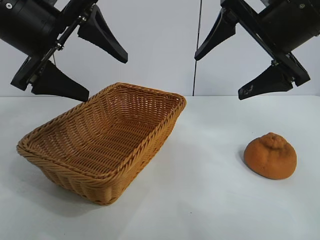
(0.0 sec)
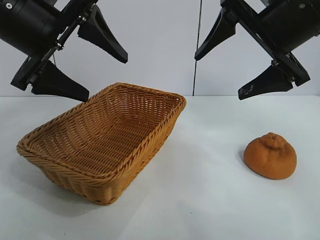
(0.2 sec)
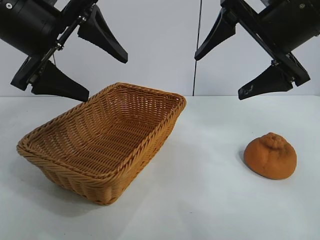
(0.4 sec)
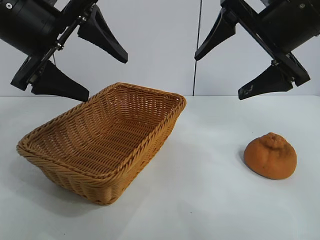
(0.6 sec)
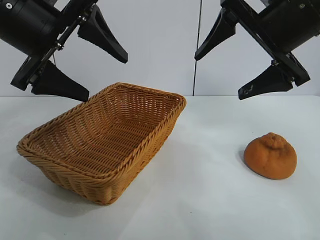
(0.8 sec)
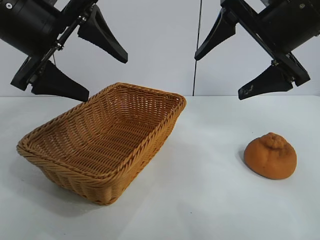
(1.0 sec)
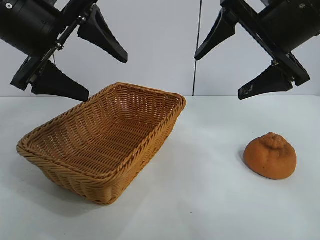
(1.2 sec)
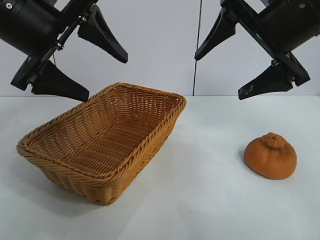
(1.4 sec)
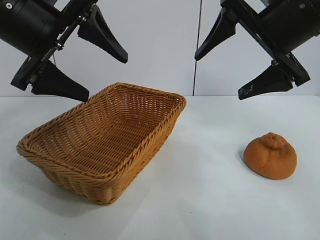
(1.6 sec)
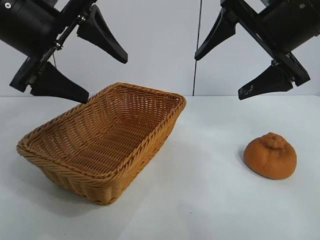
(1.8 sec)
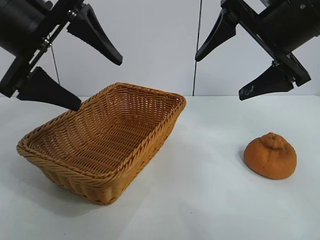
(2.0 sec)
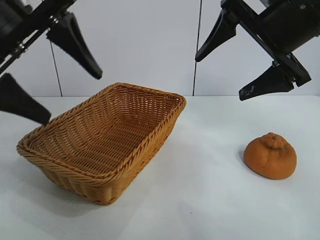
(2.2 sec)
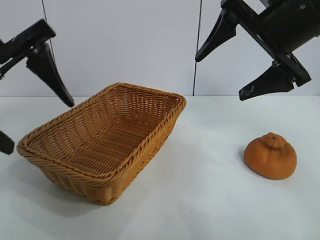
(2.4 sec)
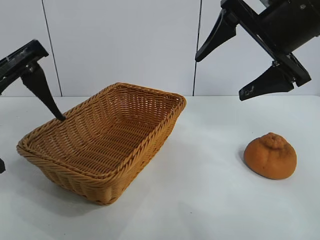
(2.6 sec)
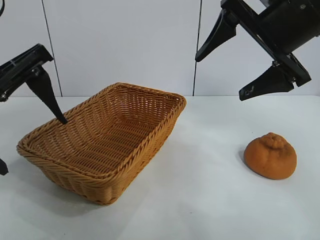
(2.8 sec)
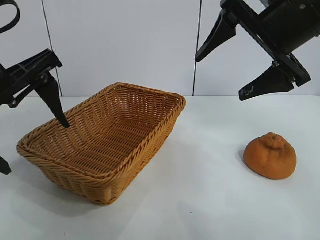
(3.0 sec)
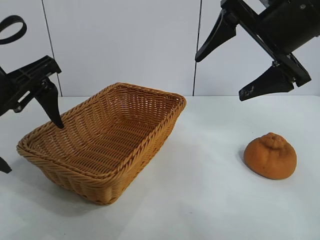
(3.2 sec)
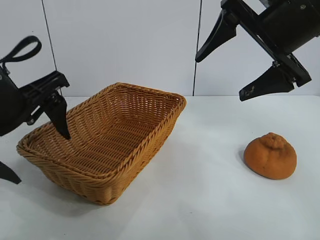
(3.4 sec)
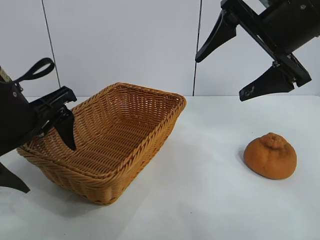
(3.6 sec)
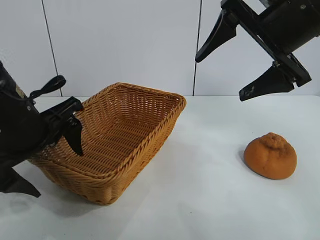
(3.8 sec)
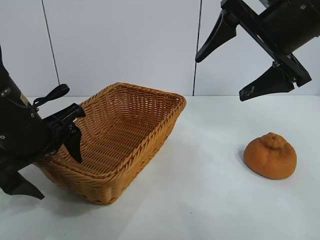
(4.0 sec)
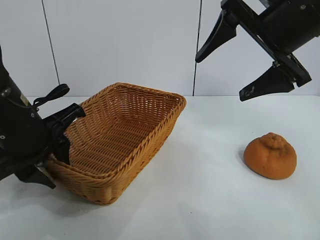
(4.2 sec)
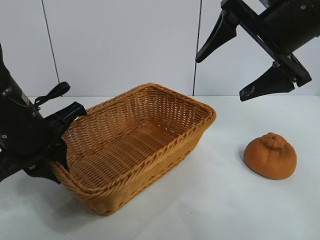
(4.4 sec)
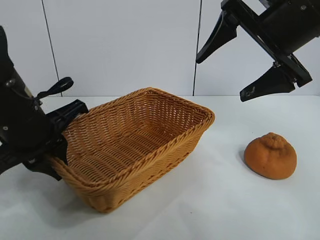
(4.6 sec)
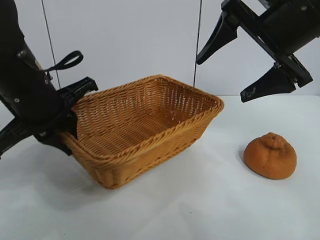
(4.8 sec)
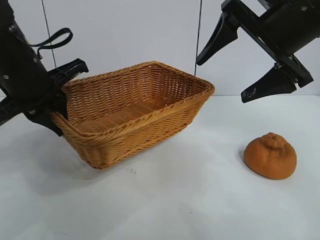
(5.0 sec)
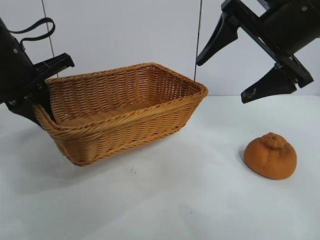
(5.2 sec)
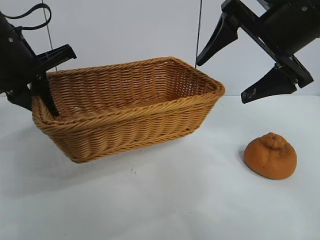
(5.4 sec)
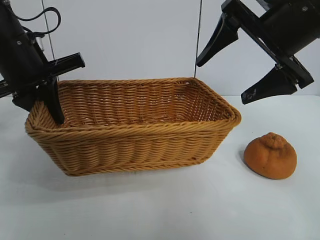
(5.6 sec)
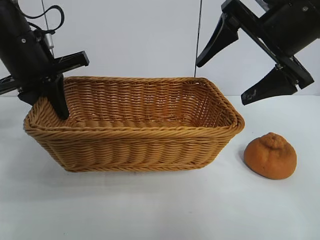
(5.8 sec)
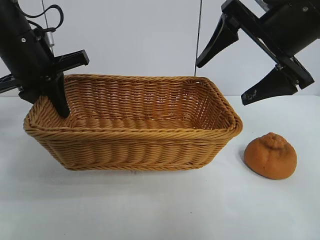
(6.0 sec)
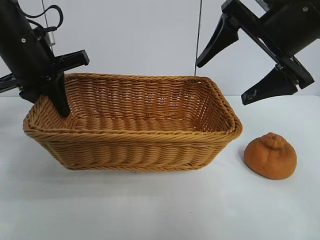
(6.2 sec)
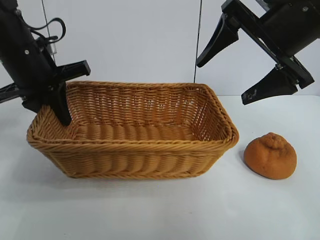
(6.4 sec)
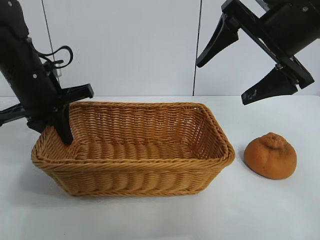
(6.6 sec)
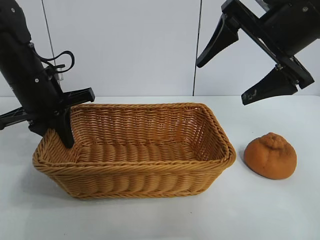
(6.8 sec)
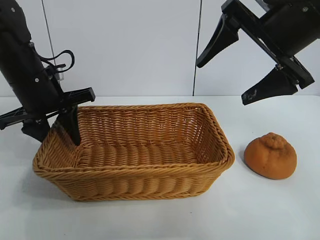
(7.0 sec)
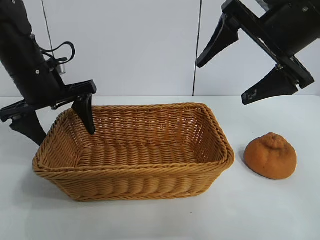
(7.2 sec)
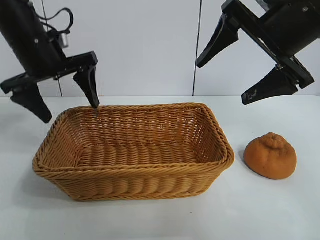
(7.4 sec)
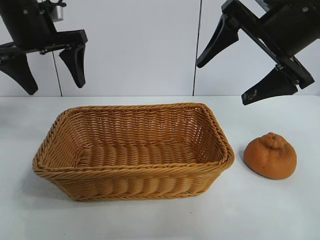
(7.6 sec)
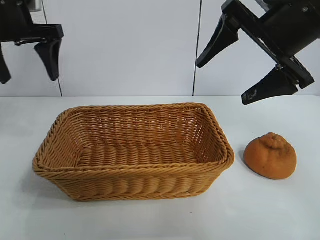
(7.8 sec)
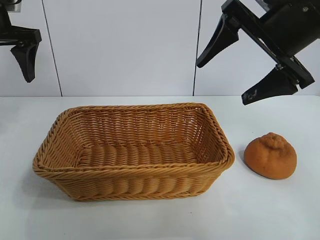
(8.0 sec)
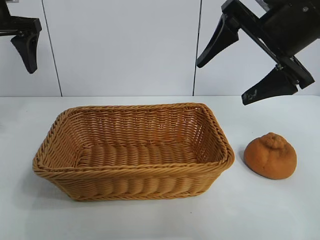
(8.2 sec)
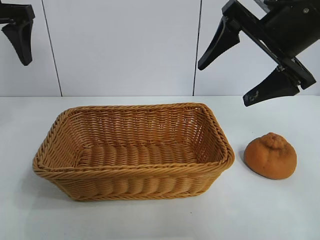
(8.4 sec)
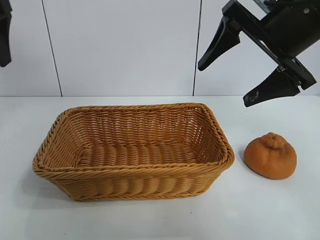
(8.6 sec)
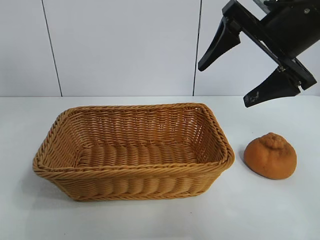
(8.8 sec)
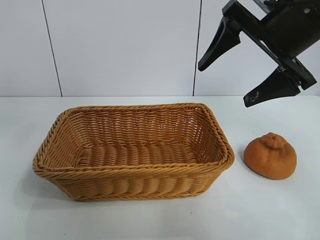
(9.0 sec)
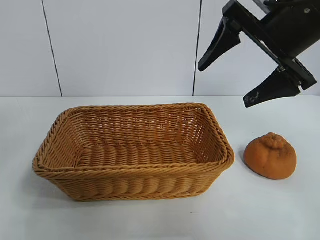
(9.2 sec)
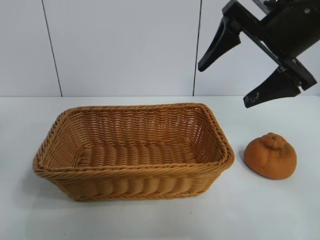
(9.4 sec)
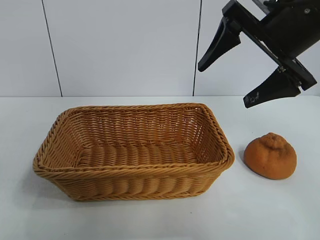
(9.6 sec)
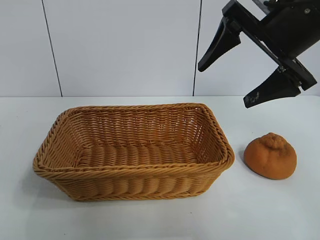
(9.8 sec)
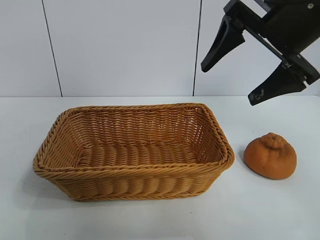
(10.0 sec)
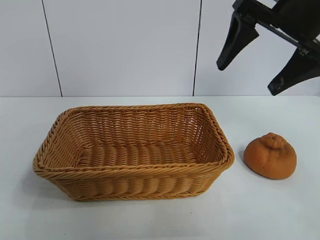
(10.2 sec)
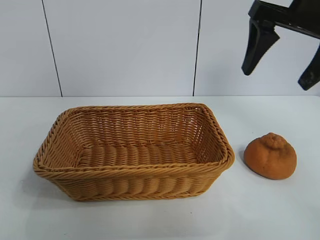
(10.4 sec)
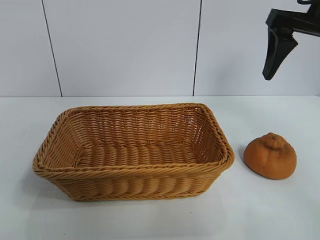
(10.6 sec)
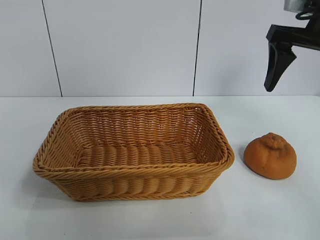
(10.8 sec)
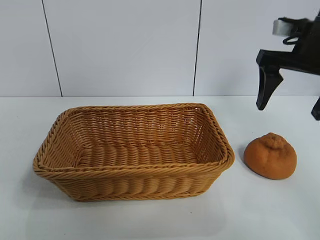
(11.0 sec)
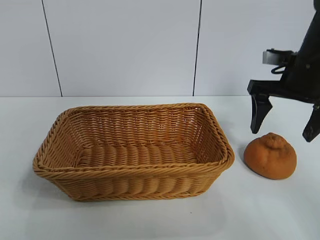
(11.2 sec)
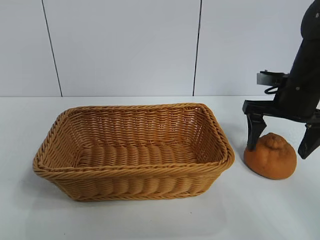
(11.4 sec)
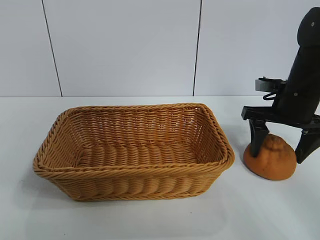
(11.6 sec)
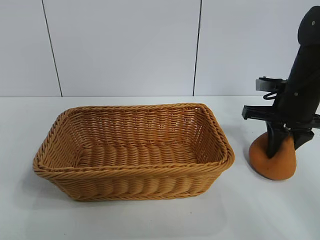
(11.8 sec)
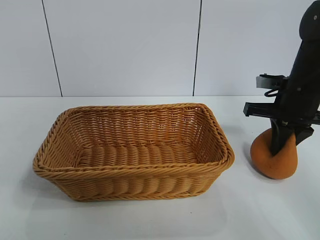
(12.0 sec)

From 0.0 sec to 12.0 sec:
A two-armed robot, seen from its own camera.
Task of the whole recording: pick up the orange and put it into the basket.
Step, from 1.8 sec to 4.2 sec: Grasp the basket with left gripper.
Step, from 4.4 sec to 7.0 sec: Place the basket in the center of view with left gripper.

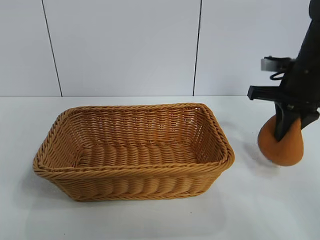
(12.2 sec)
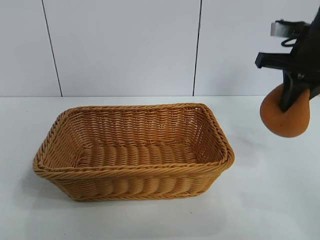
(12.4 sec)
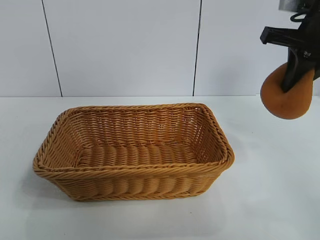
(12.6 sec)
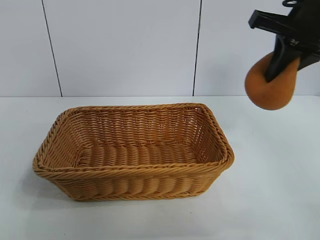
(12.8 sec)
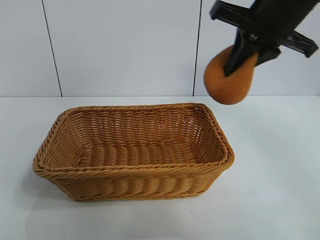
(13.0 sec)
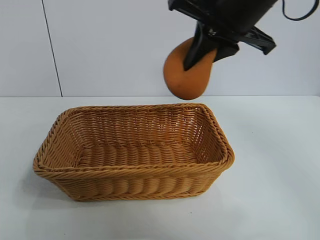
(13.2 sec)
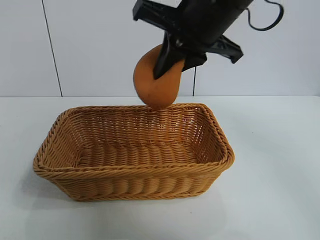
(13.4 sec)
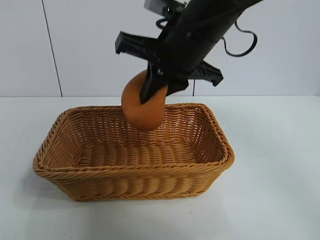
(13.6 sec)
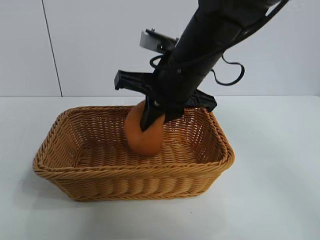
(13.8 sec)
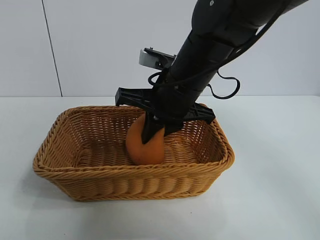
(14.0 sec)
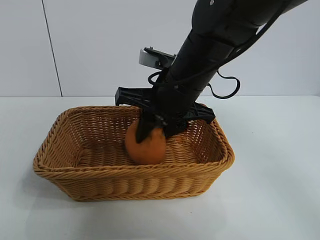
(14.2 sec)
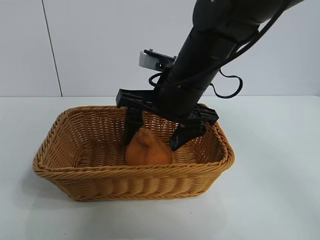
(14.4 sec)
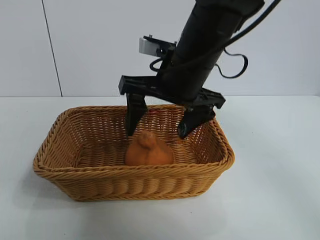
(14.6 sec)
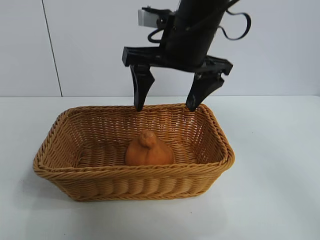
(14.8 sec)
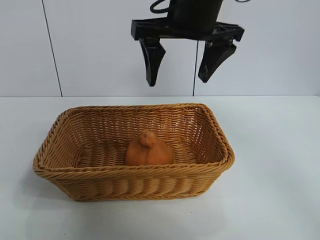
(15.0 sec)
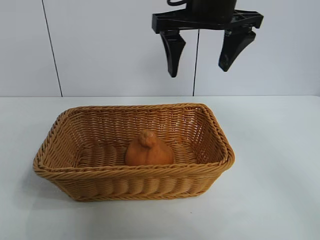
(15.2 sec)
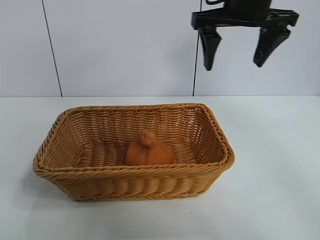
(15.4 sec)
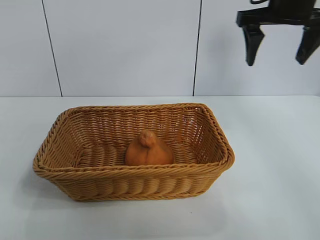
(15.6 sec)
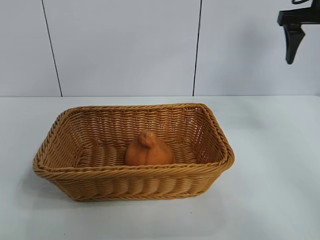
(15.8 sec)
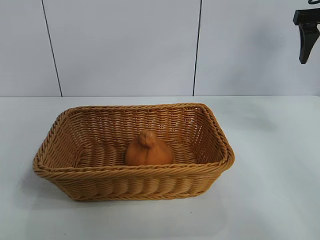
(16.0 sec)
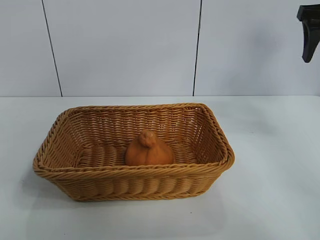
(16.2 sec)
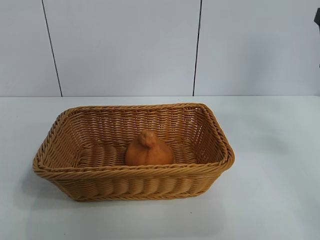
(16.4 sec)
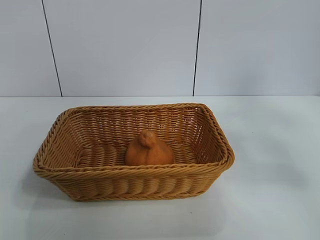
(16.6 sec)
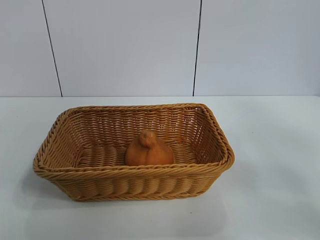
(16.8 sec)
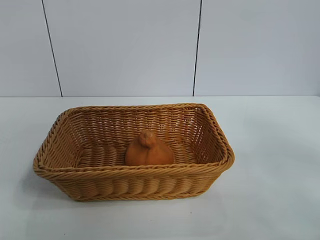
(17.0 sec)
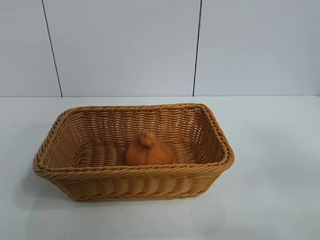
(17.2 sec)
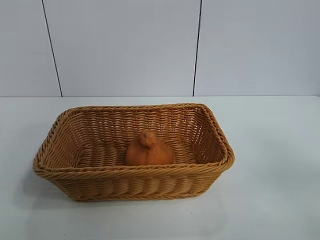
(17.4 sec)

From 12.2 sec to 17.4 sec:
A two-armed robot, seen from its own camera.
Task of the whole recording: pick up the orange and put it into the basket.
Step, from 12.4 sec to 14.4 sec: Place the orange in the basket with right gripper.
